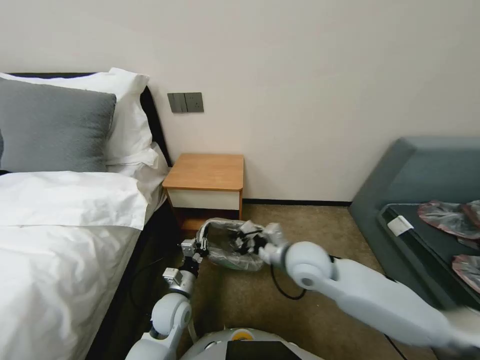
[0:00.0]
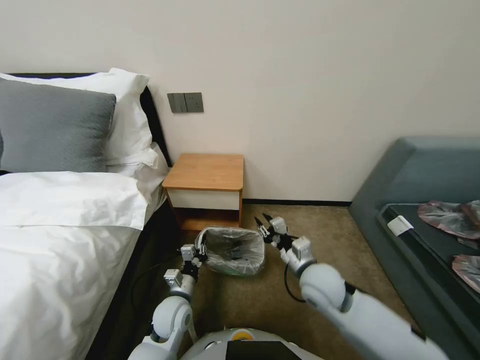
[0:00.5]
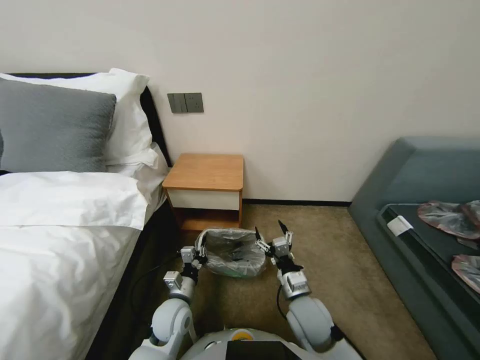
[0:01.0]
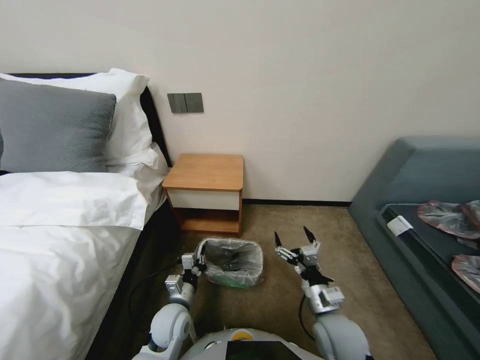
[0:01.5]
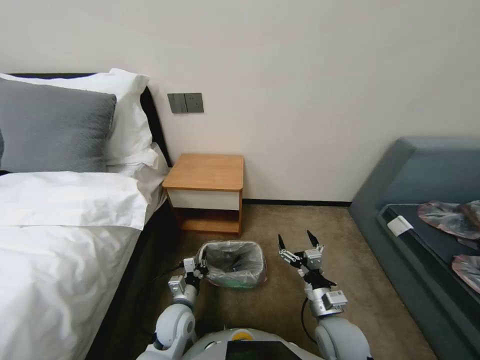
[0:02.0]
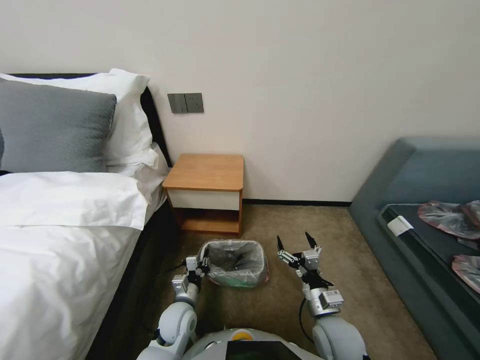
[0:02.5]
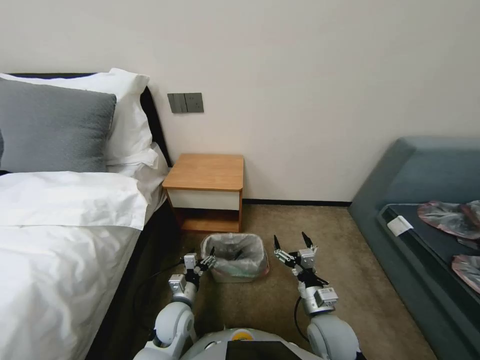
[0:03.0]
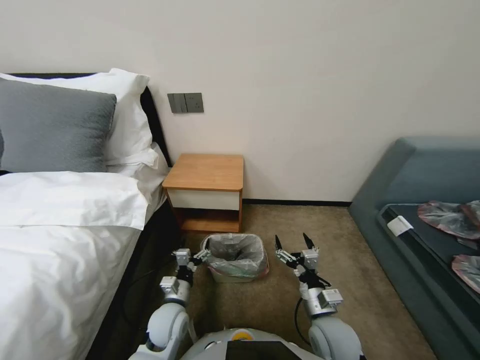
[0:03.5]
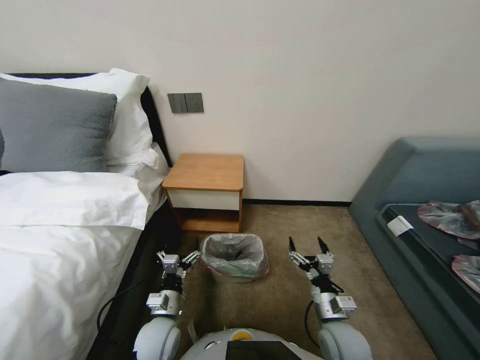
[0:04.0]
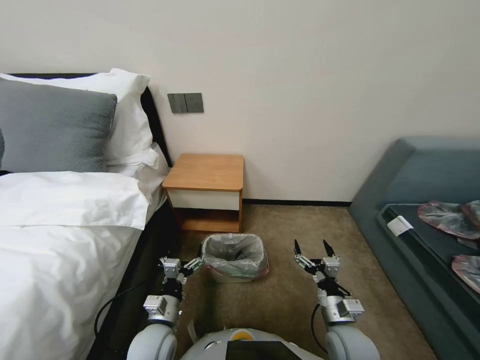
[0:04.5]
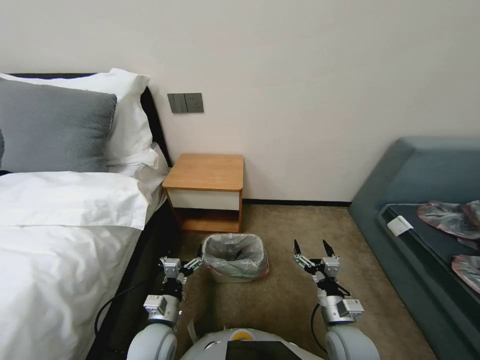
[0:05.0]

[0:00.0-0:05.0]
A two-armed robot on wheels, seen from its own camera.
Task of the whole recording: Pick up the garbage bag from the table and place it over the trash can.
0:00.0 to 0:02.5: The right gripper goes approximately 20 cm downward, backward and to the right, and opens its fingers.
0:02.5 to 0:05.0: The left gripper shifts roughly 10 cm backward and upward, and opens its fingers.

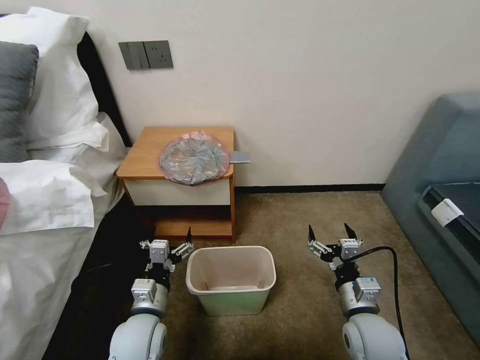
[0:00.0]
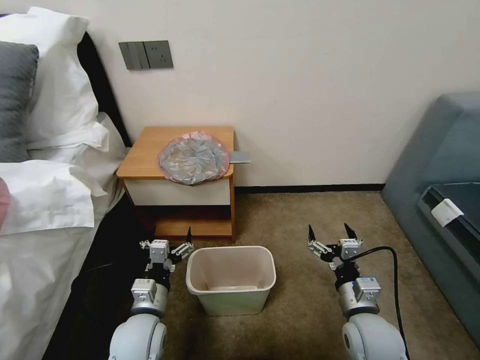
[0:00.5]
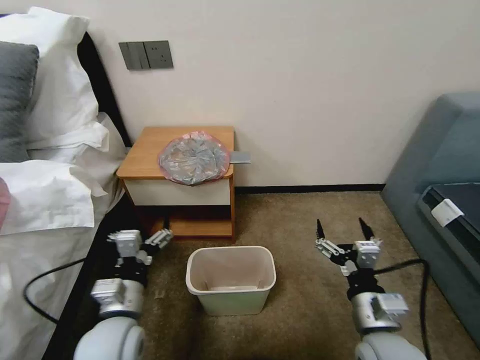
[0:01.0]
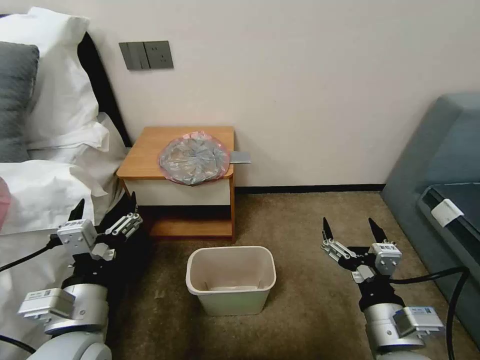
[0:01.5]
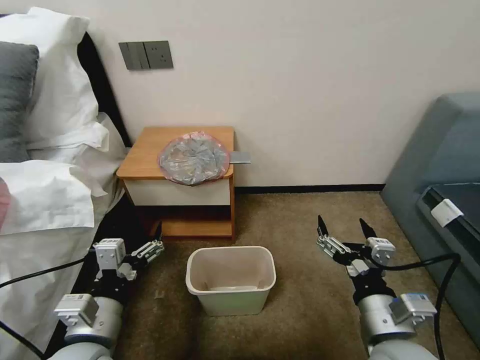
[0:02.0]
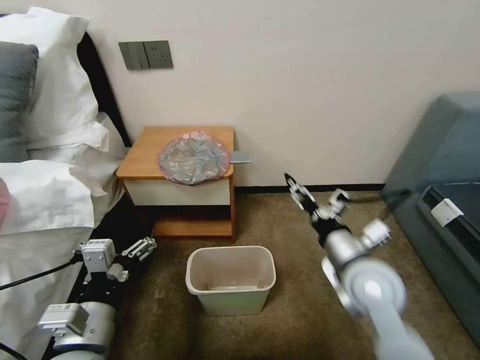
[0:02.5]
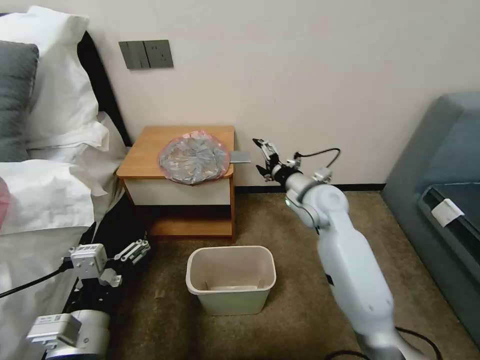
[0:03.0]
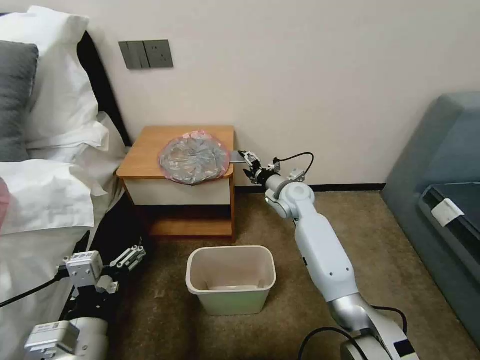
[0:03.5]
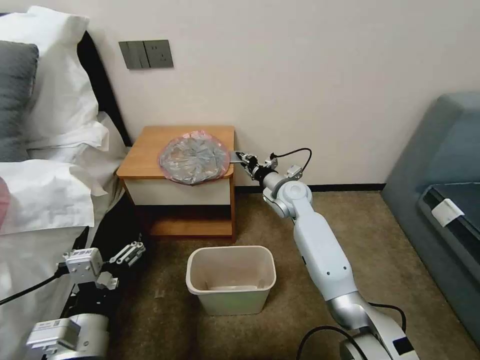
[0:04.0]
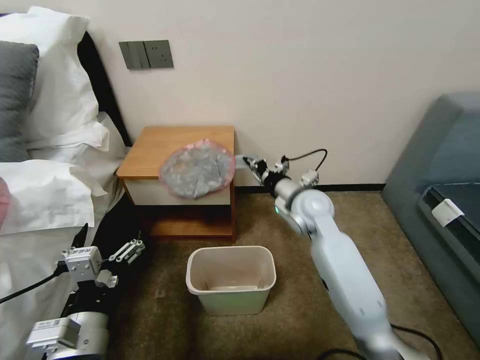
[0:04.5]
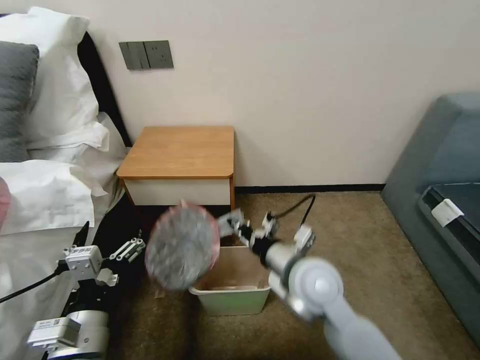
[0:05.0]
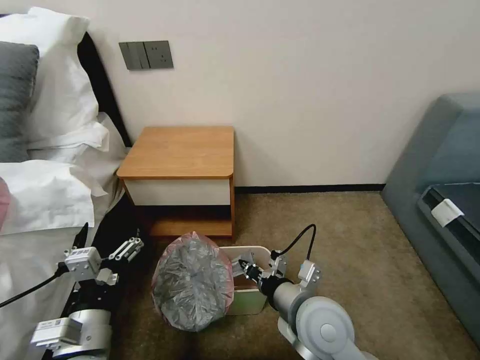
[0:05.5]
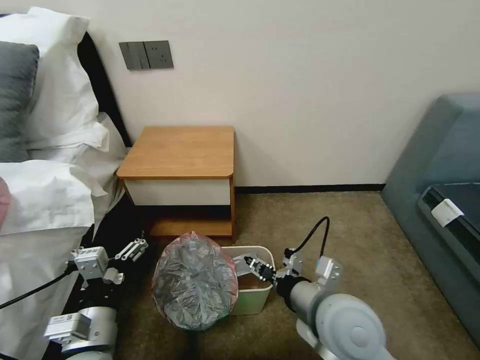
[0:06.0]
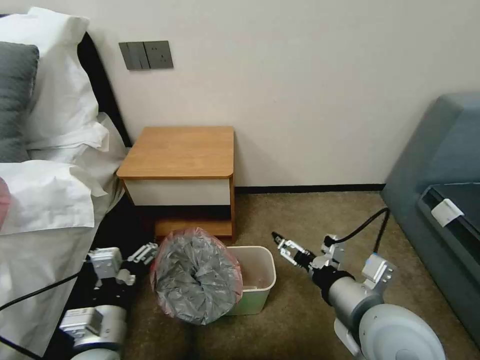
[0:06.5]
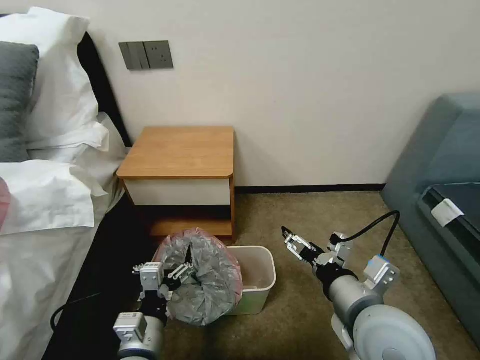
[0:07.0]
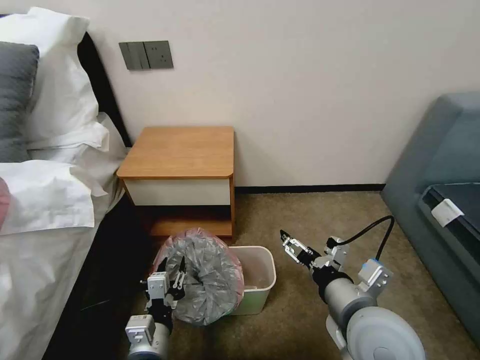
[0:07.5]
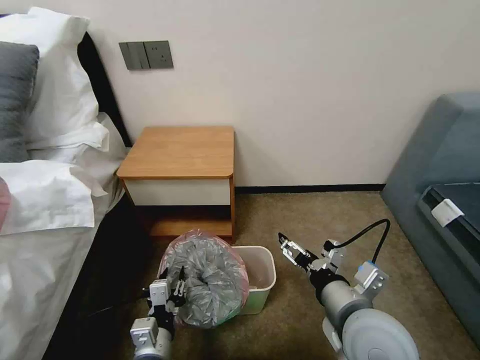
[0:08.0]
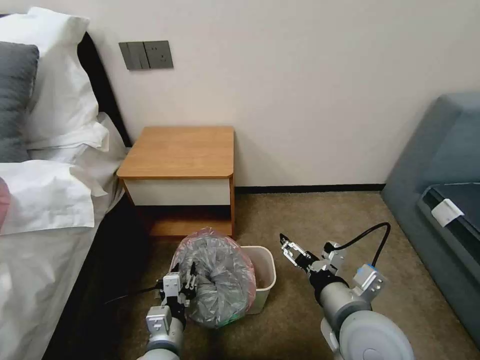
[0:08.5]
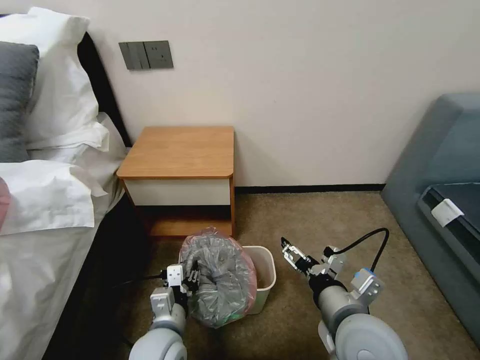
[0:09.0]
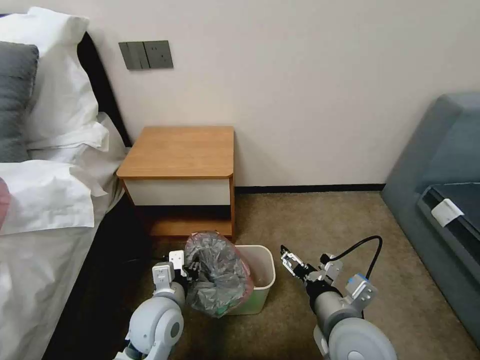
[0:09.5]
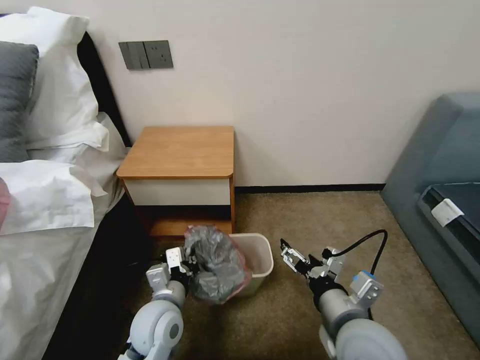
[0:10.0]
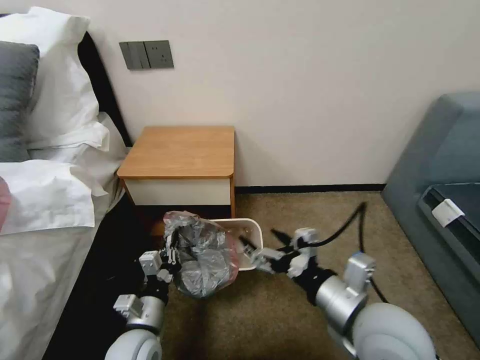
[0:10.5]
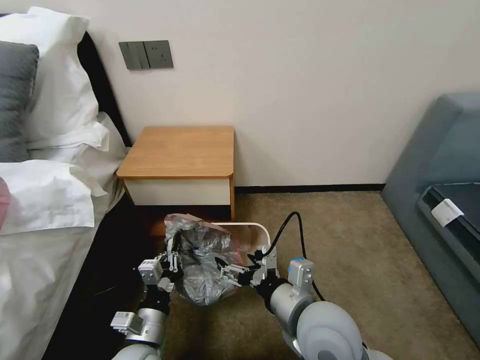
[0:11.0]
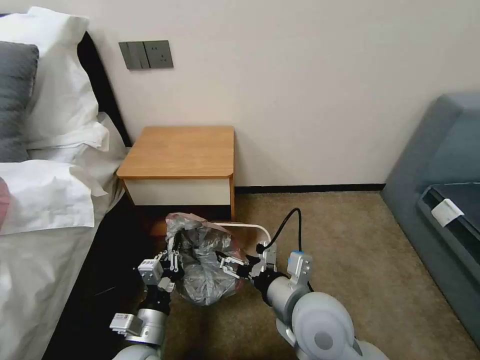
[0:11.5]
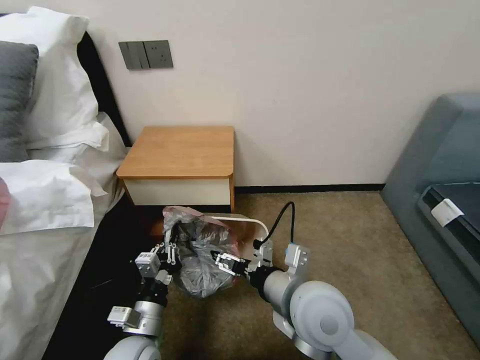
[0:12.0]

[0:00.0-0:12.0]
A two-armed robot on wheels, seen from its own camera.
Task of the whole recording: Pick up the garbage bag from the table and place it over the trash can.
0:02.0 to 0:04.0: The right gripper shifts some 35 cm forward, and closes its fingers.
0:04.0 to 0:06.0: The right gripper is displaced backward by about 30 cm.
0:06.0 to 0:08.0: The right gripper opens up, while the left gripper is displaced downward and to the right by some 10 cm, and closes.
0:08.0 to 0:10.0: The left gripper moves forward, about 10 cm, and closes.
0:10.0 to 0:12.0: The right gripper is displaced to the left by some 5 cm, while the left gripper heads backward, covering approximately 5 cm.

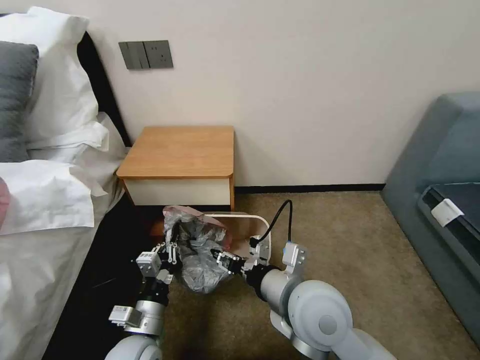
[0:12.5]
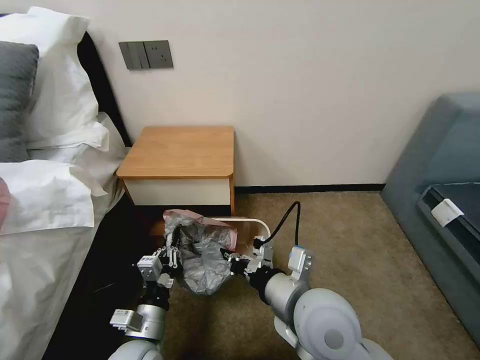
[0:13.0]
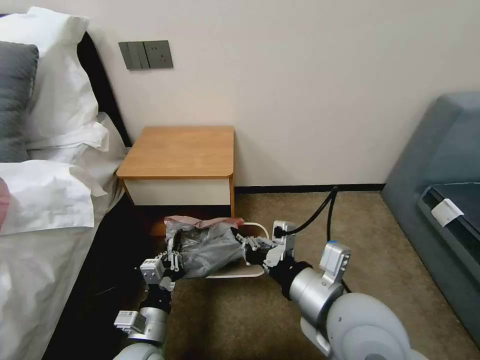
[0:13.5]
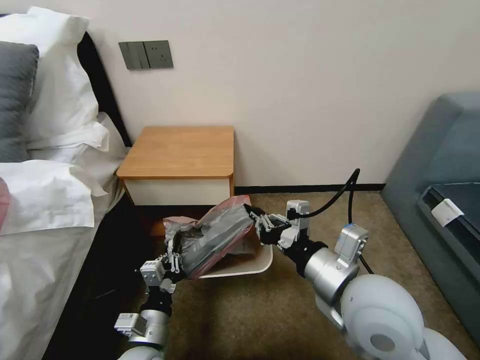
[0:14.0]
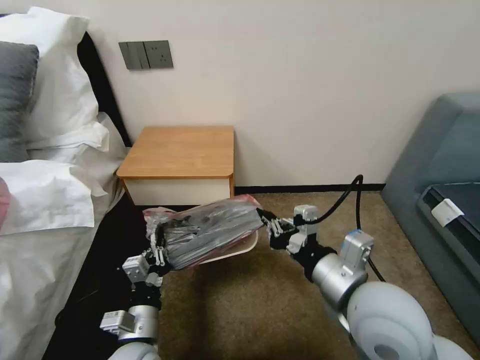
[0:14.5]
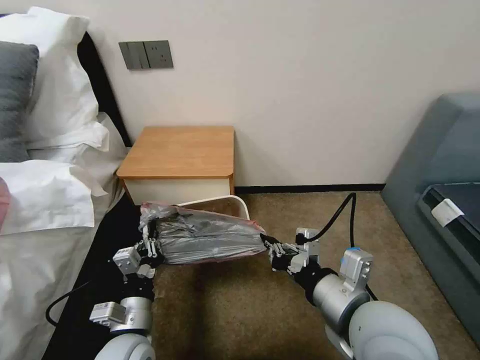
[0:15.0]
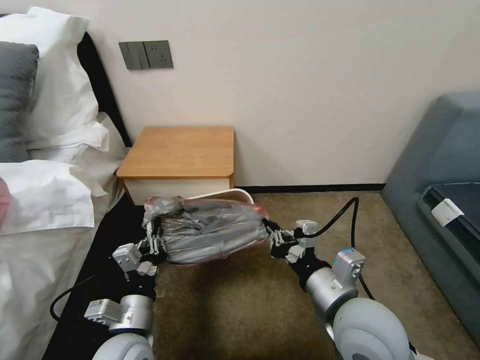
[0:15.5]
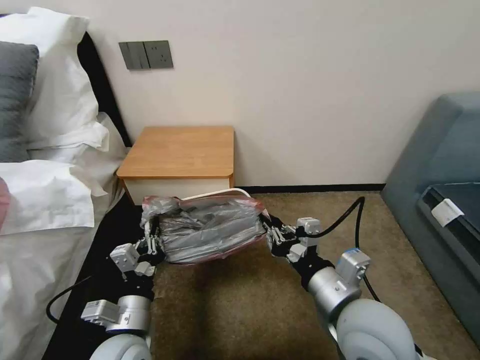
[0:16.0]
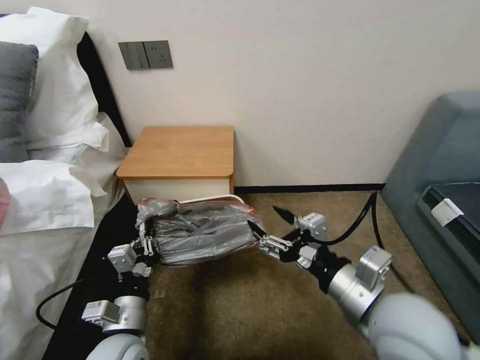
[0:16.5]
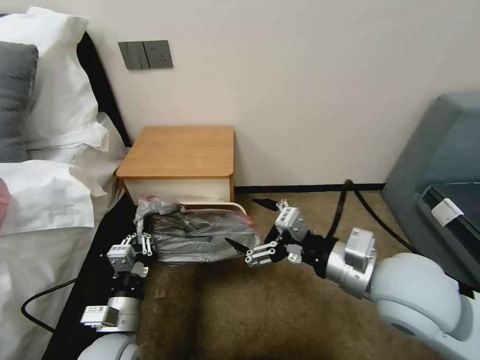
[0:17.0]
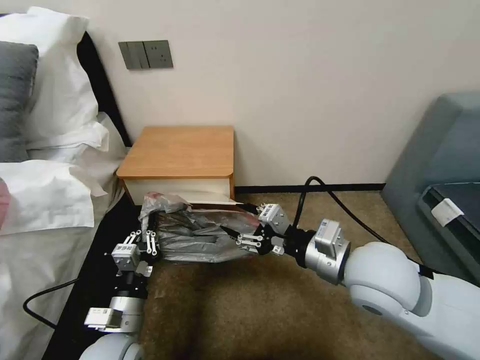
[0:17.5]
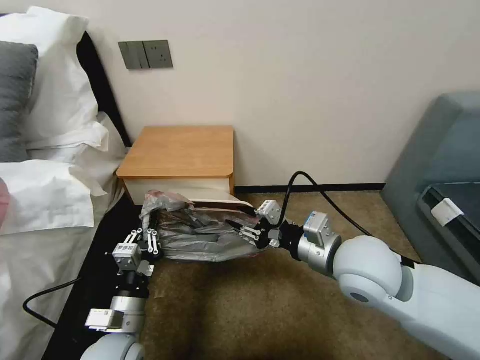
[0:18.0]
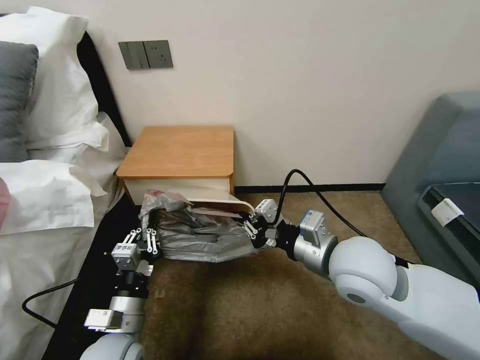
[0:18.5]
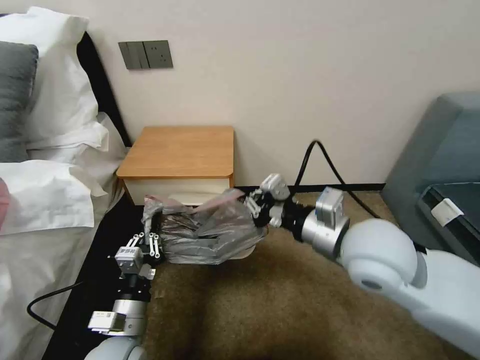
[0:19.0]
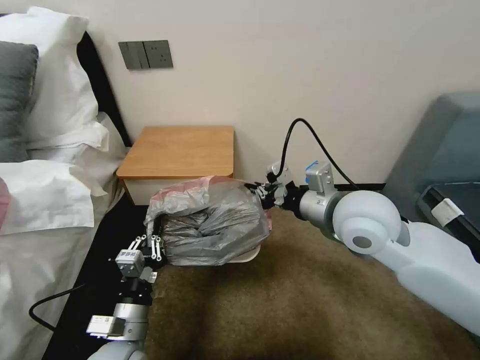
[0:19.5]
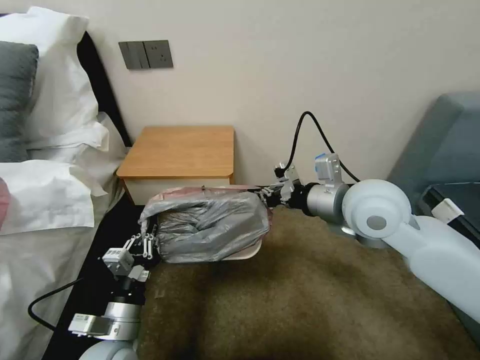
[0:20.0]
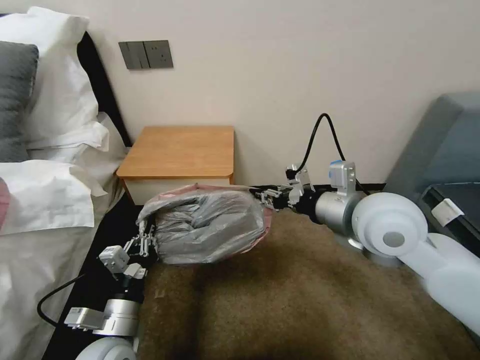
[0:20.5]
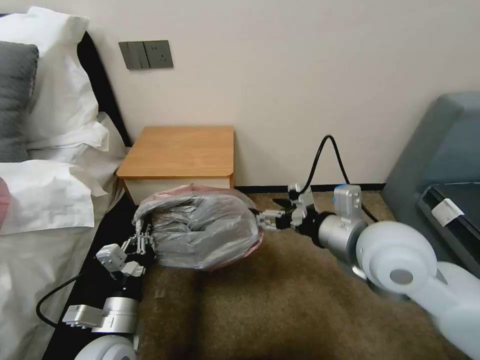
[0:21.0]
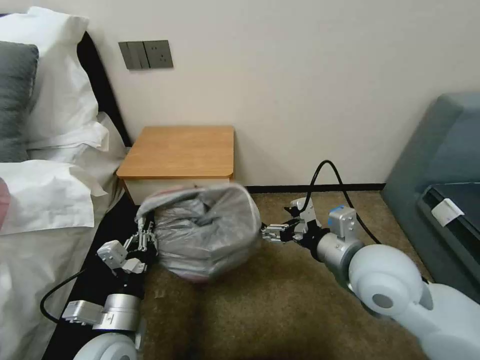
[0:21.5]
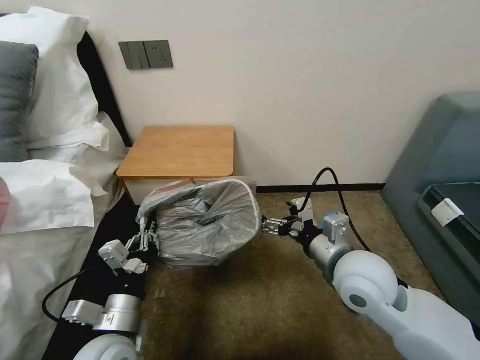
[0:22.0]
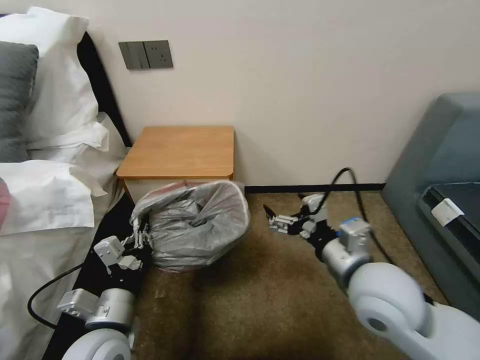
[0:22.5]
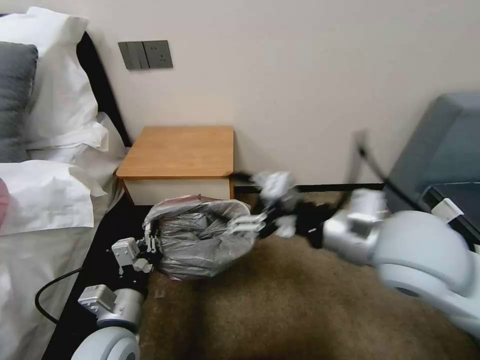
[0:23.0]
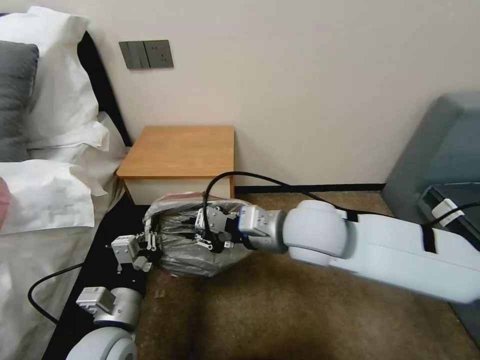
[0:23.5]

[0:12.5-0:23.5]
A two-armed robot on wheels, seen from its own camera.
Task of the whole recording: Pick up the garbage bag from the table and place it over the trash can.
0:12.5 to 0:14.5: The right gripper heads to the right, covering some 5 cm, and closes its fingers.
0:14.5 to 0:16.0: There are only small adjustments of the grippers.
0:16.0 to 0:18.0: The right gripper shifts about 10 cm forward, and opens, then closes once more.
0:18.0 to 0:20.0: The right gripper travels forward and upward by approximately 10 cm, and closes its fingers.
0:20.0 to 0:21.5: The right gripper travels backward and downward by about 10 cm, and opens up.
0:21.5 to 0:23.5: The right gripper shifts about 10 cm to the left and forward, reaches roughly 10 cm upward, then returns, and closes.
